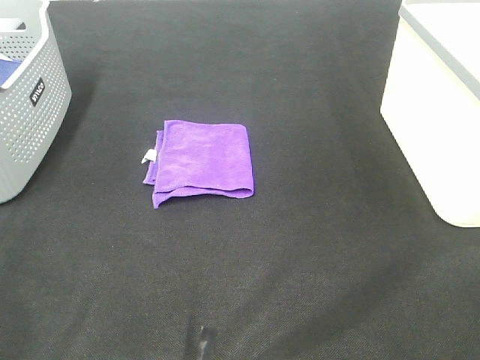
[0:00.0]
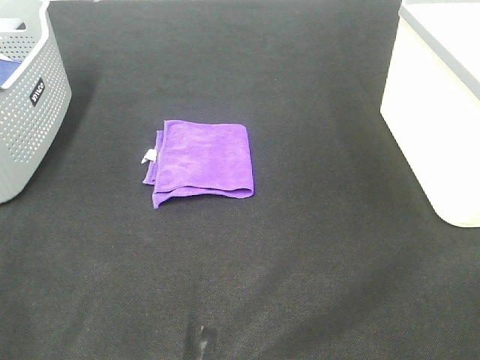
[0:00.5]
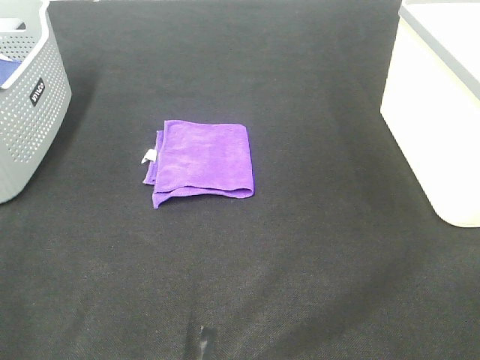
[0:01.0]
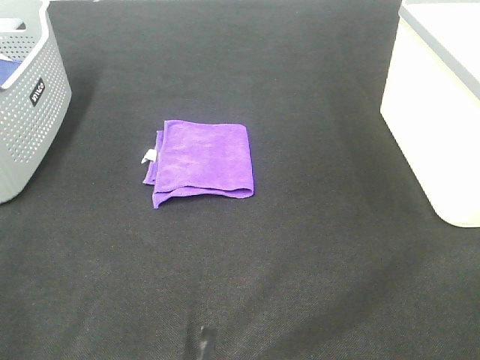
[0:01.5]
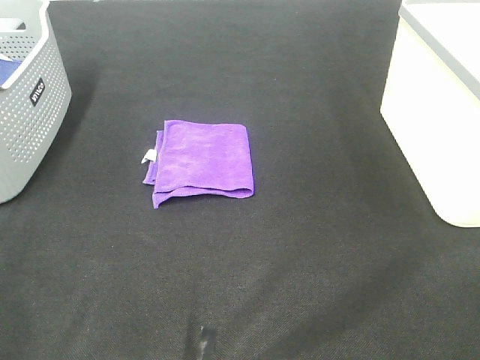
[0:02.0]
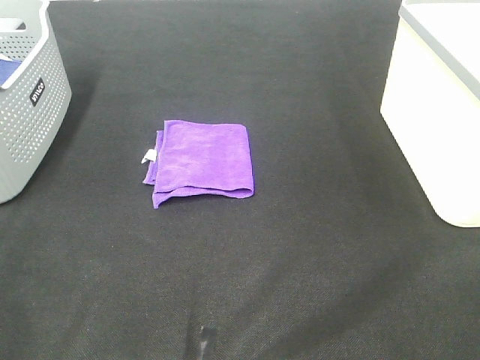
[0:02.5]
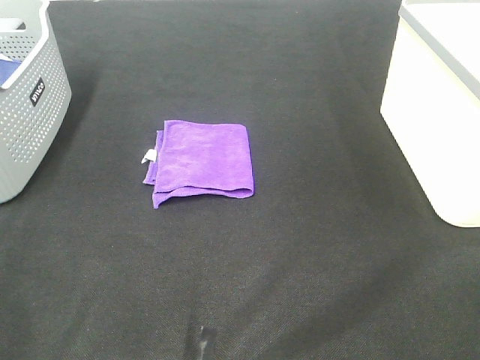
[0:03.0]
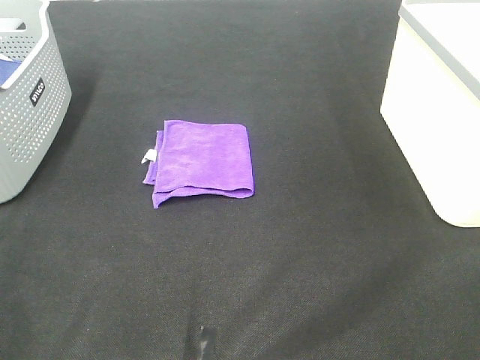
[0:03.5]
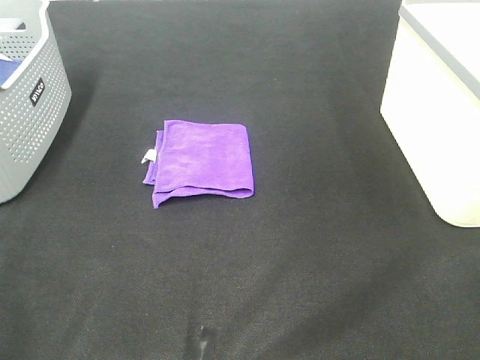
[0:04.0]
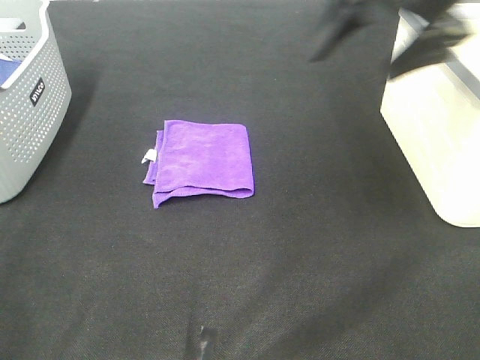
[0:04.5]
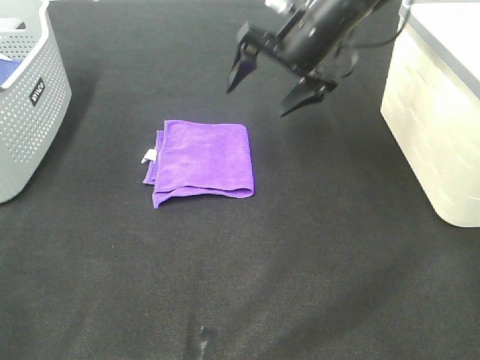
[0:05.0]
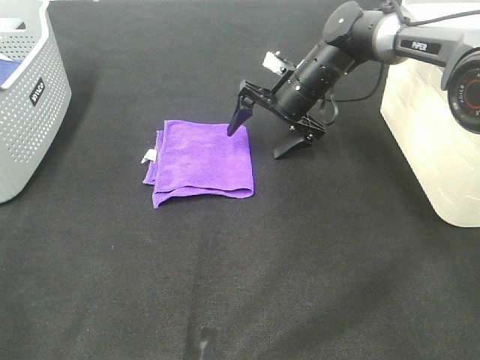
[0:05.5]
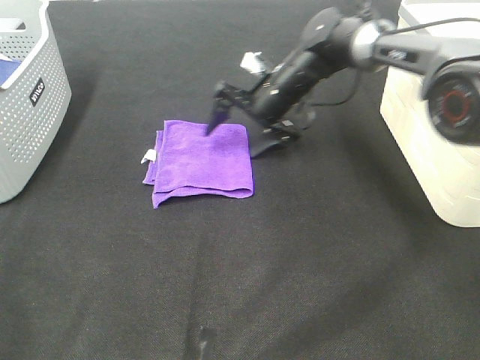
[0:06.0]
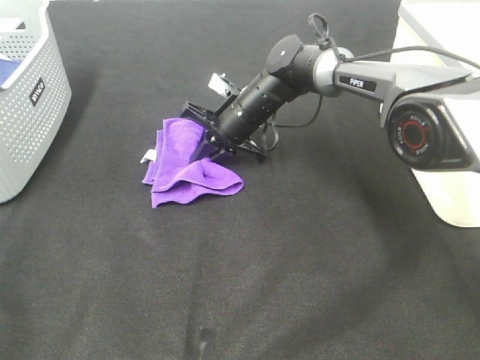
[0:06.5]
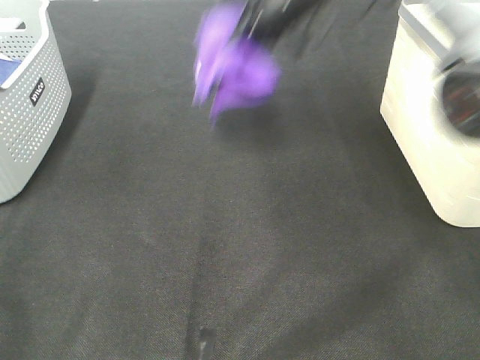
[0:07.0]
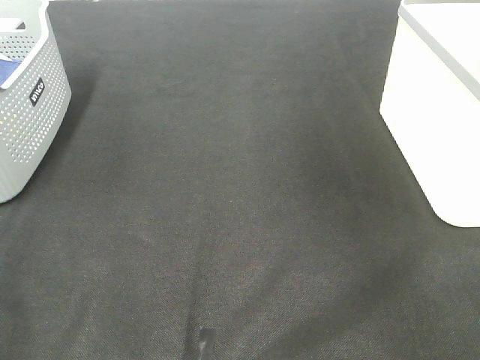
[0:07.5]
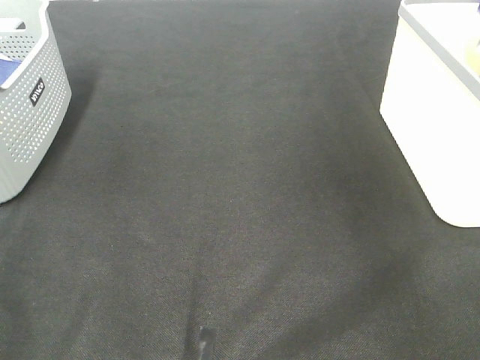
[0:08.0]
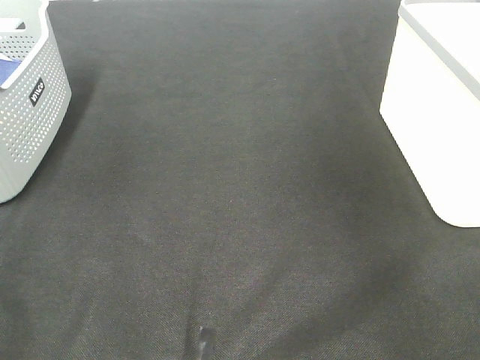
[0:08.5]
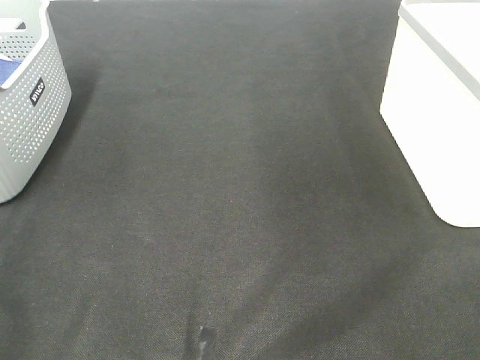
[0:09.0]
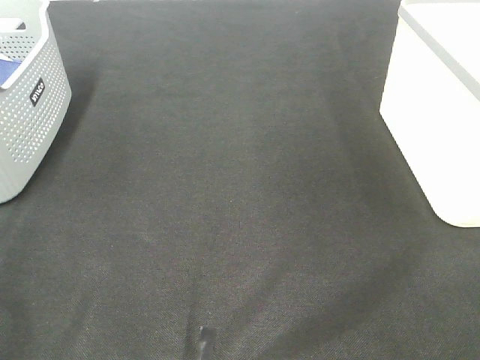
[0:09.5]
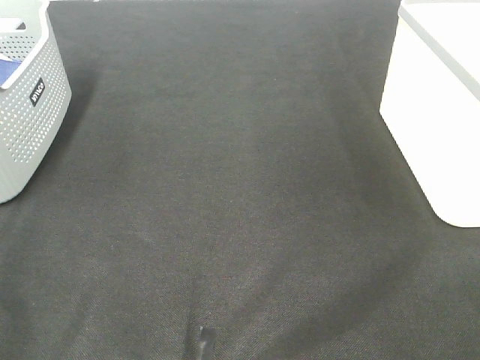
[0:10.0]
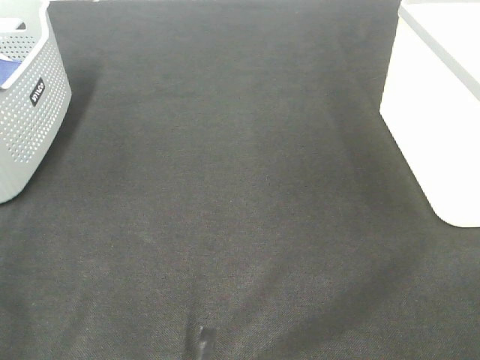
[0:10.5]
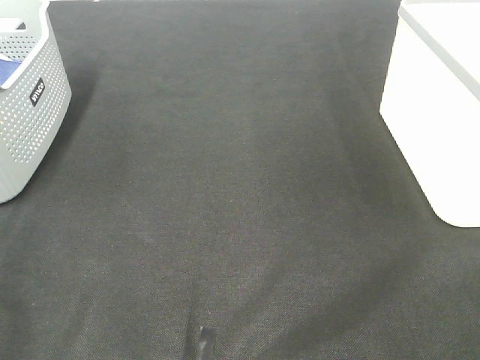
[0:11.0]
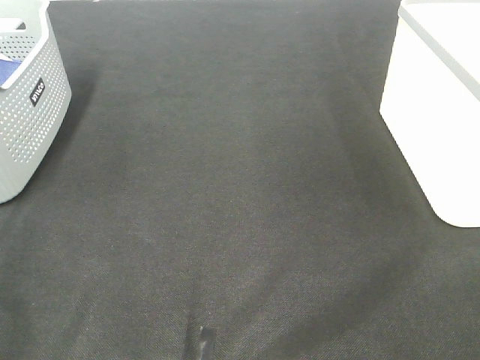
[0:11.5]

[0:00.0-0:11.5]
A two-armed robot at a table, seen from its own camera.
Step, 0:00.0 to 0:06.5: Right hand: grab the folded purple towel.
Step, 0:07.0 to 0:08.0: Right hand: place the purple towel in right basket.
0:00.0 to 0:02.0: The two grippers keep their place.
0:04.0 to 0:06.0: The right gripper travels forward, downward and to the left by about 50 cm.
0:06.0 to 0:07.5: The right gripper goes roughly 40 cm upward and to the right, and closes.

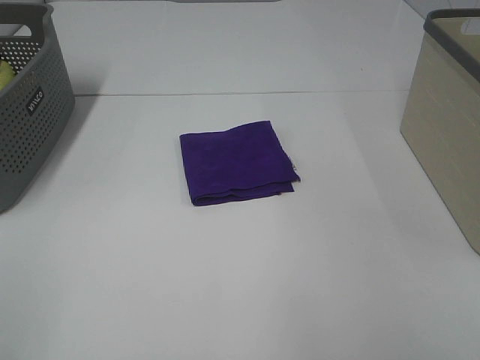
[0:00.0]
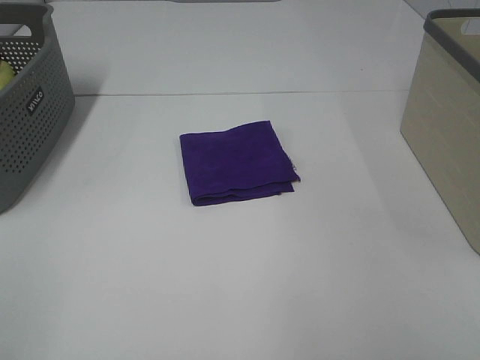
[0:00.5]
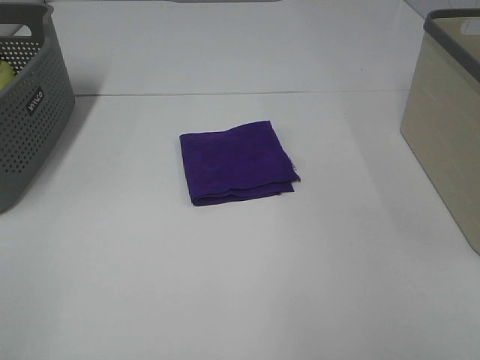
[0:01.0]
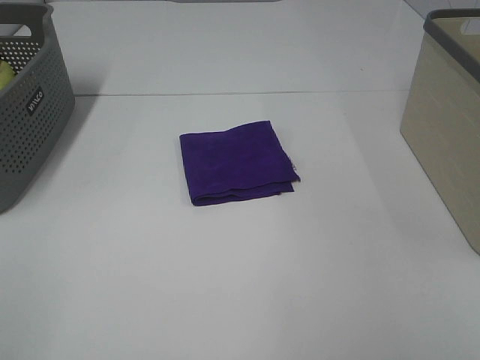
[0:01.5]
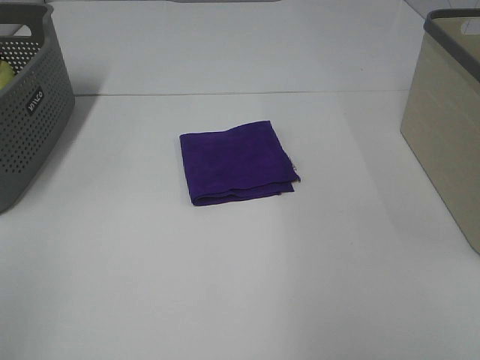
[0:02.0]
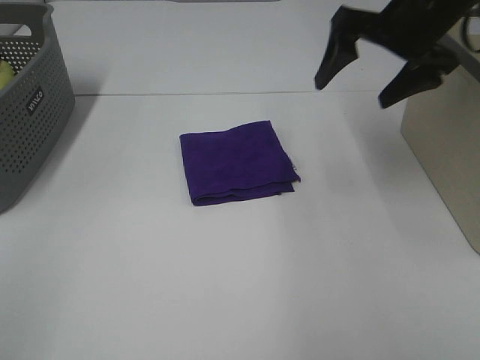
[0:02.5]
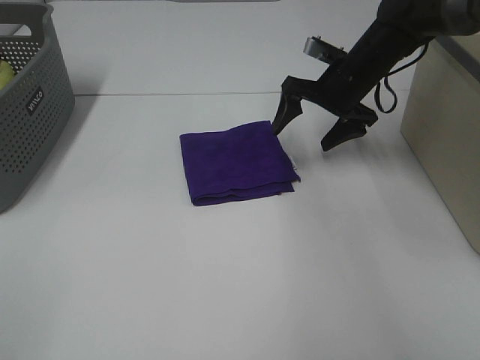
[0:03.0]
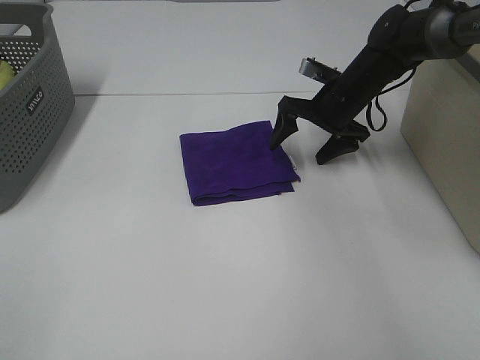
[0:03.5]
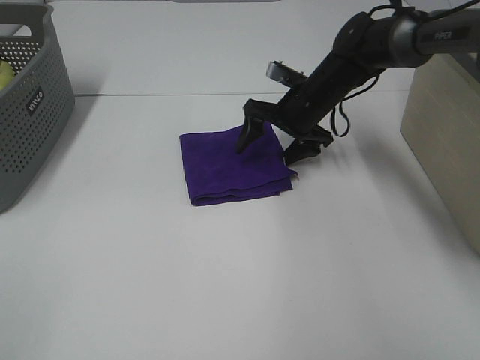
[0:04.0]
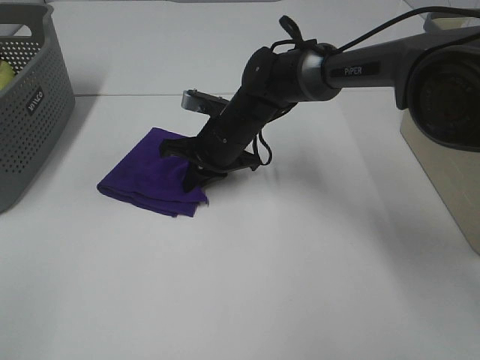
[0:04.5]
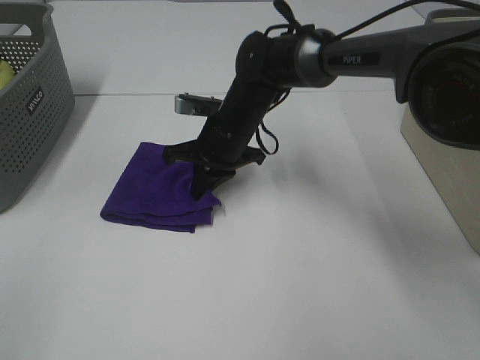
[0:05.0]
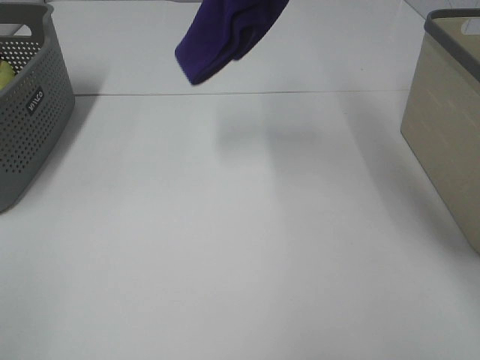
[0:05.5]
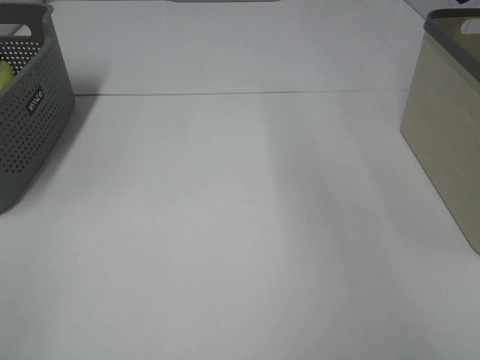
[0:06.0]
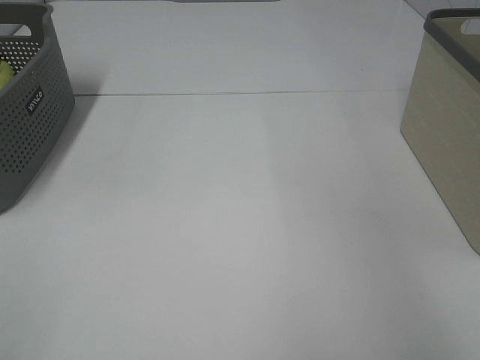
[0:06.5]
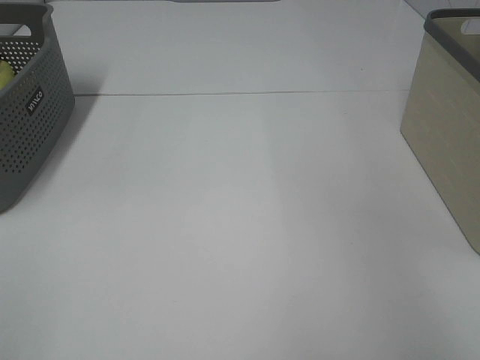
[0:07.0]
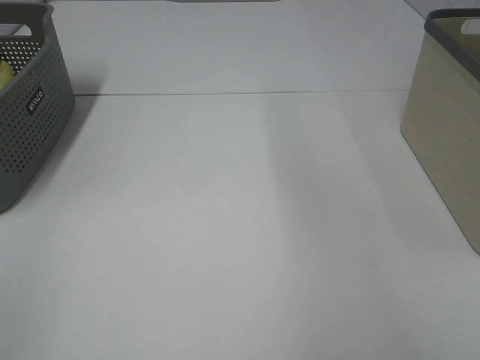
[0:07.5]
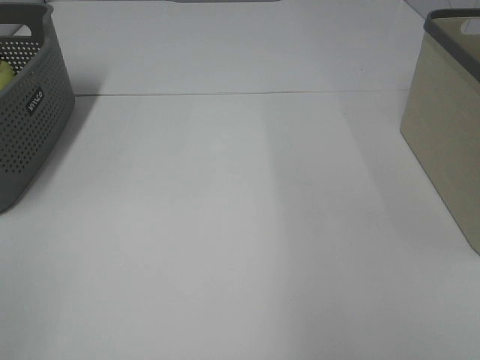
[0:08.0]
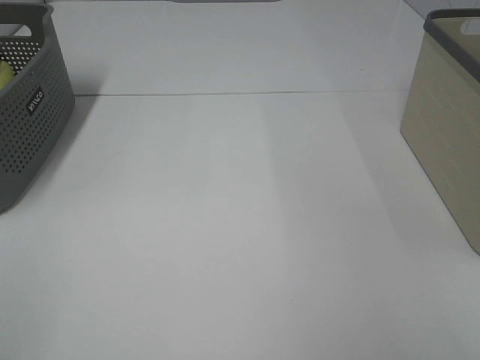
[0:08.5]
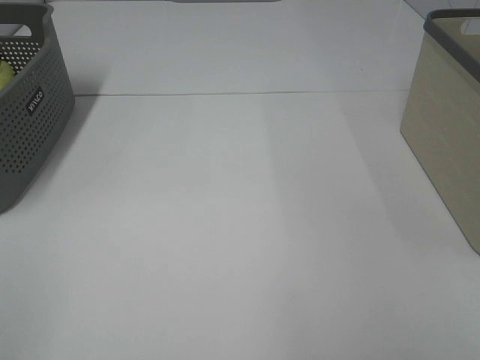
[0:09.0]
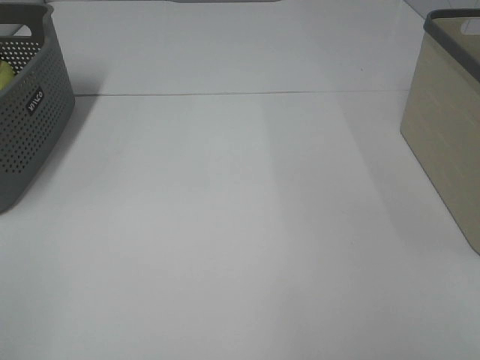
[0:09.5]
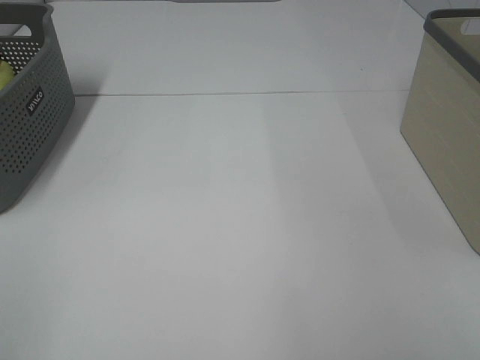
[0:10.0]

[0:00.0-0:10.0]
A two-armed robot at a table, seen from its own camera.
Step, 0:00.0 to 0:04.5: Right hand: grab the folded purple towel.
Step, 0:05.0 to 0:07.0: Right hand: place the purple towel in right basket.
0:02.0 to 0:04.0: The right gripper goes roughly 40 cm downward, forward and to the left.
0:04.0 to 0:06.0: The right gripper travels upward and to the right by roughly 40 cm, and closes its fingers.

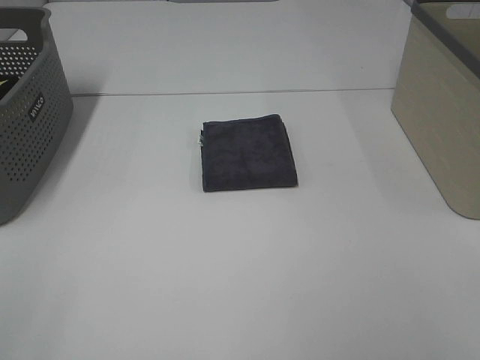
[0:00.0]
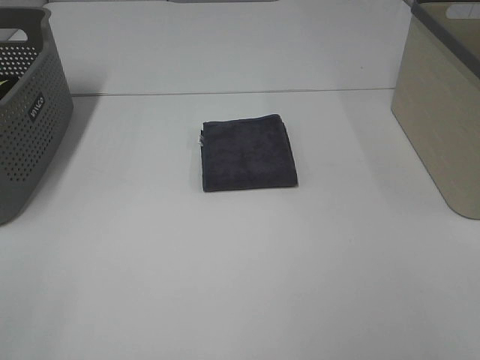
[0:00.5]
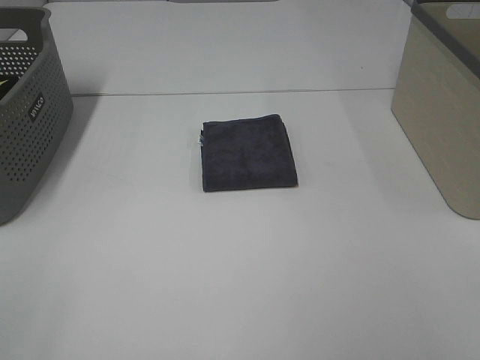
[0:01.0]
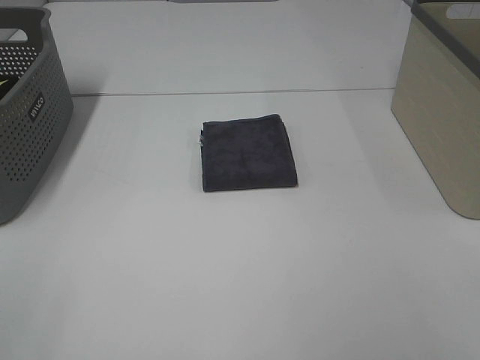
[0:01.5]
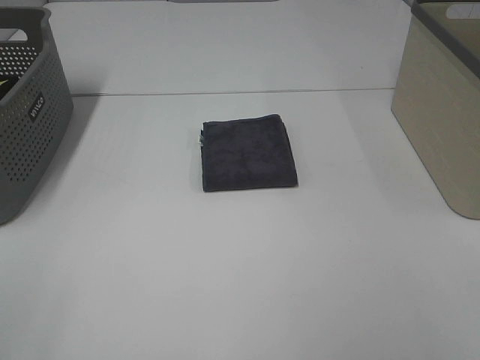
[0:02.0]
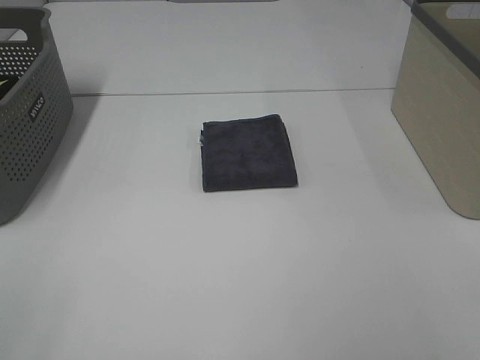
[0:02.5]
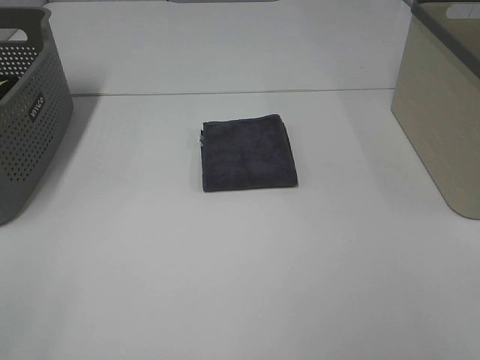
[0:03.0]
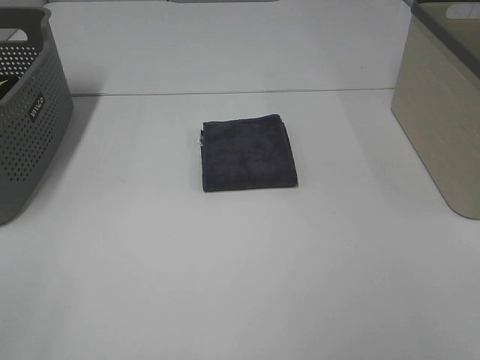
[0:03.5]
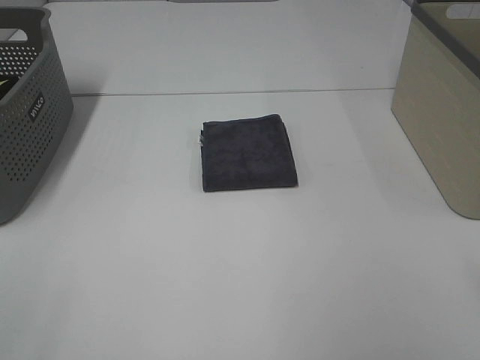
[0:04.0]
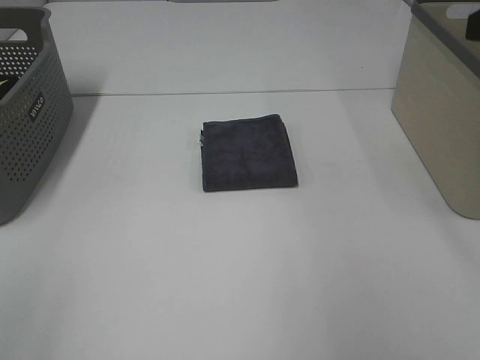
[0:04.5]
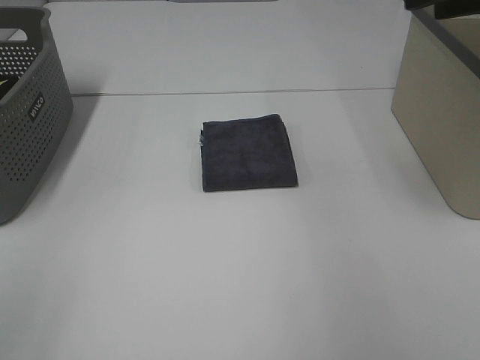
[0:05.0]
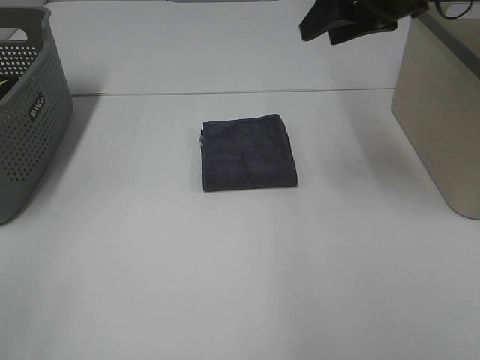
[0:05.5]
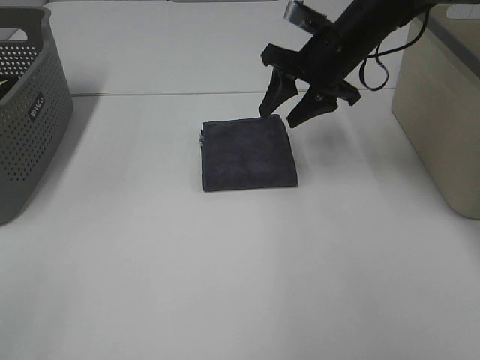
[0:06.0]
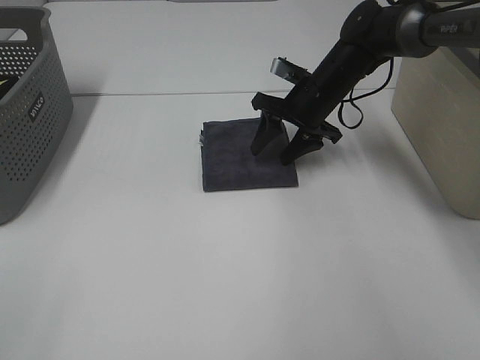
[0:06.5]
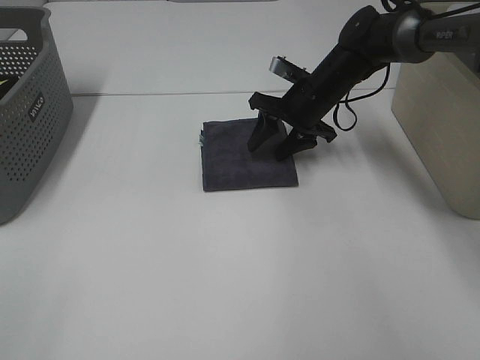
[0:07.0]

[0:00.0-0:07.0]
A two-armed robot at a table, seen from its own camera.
0:00.0 to 0:03.5: Both grippers stay put.
0:03.5 to 0:05.0: The right gripper heads forward, covering about 35 cm.
0:05.0 to 0:07.0: The right gripper moves downward, forward and to the left, roughly 30 cm.
